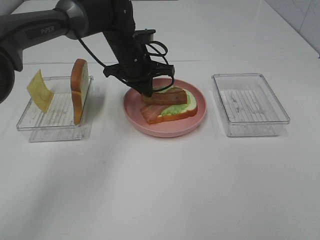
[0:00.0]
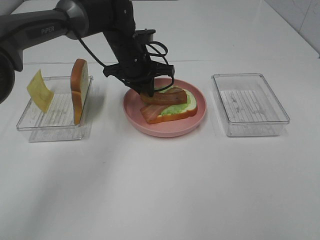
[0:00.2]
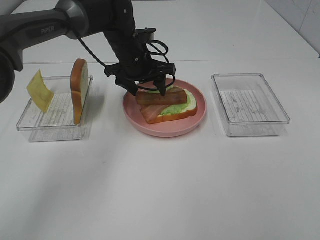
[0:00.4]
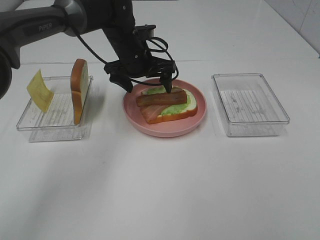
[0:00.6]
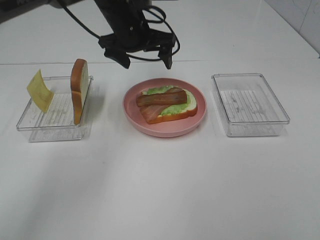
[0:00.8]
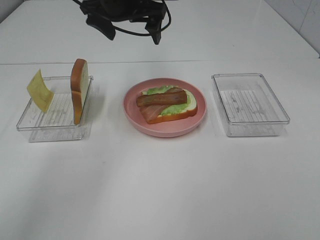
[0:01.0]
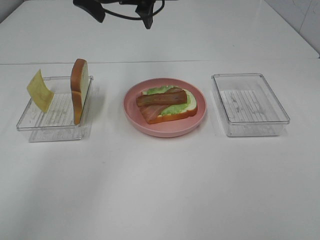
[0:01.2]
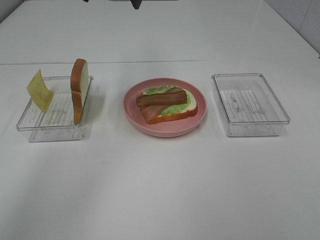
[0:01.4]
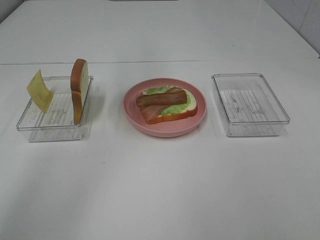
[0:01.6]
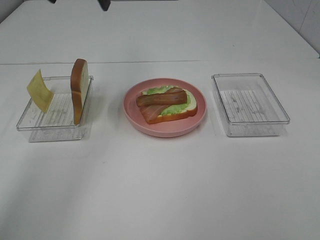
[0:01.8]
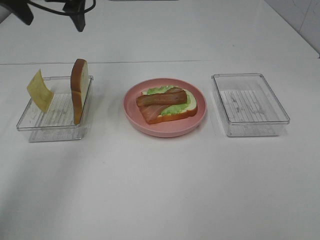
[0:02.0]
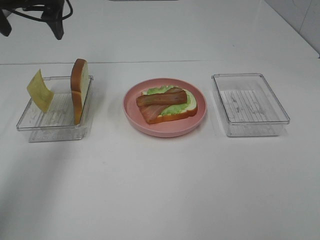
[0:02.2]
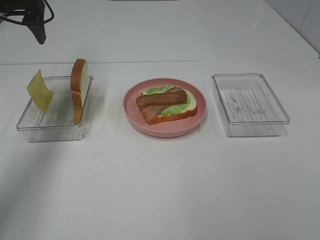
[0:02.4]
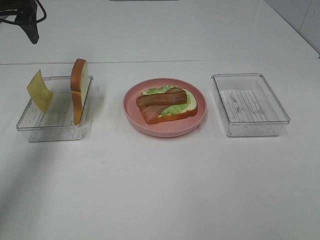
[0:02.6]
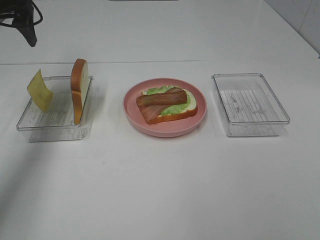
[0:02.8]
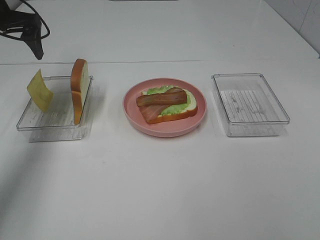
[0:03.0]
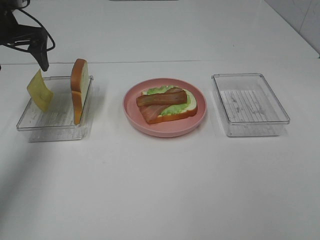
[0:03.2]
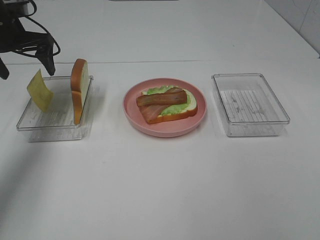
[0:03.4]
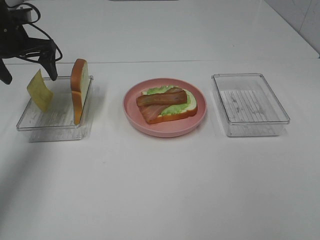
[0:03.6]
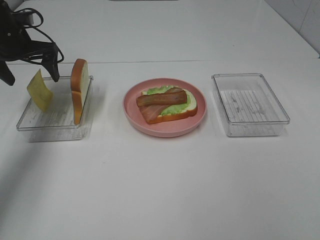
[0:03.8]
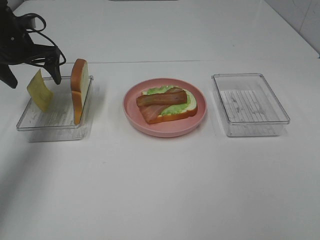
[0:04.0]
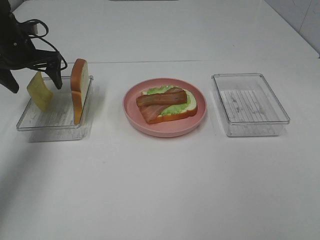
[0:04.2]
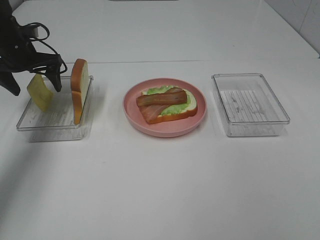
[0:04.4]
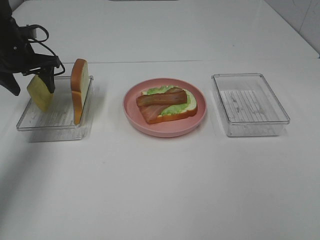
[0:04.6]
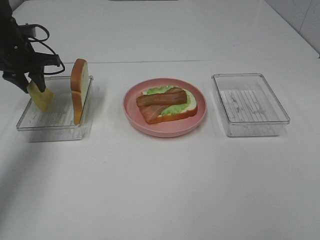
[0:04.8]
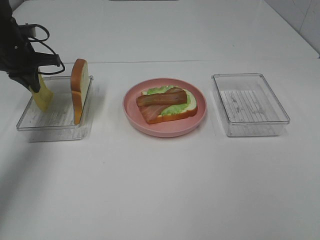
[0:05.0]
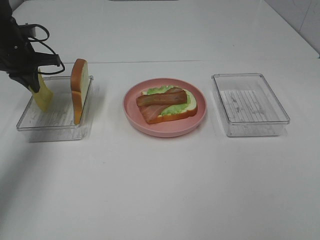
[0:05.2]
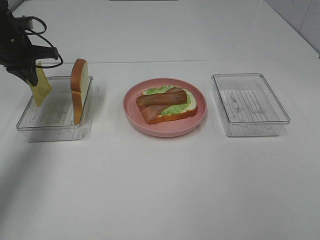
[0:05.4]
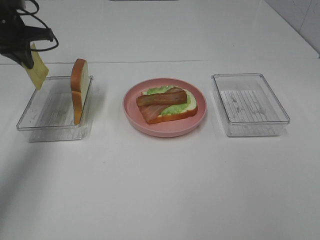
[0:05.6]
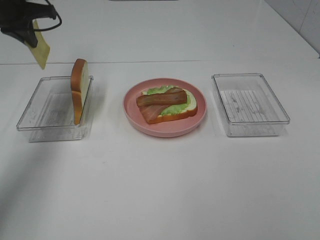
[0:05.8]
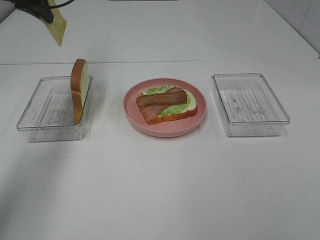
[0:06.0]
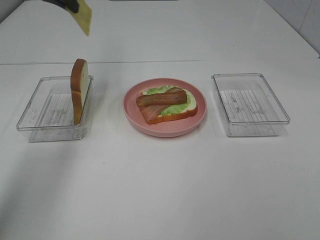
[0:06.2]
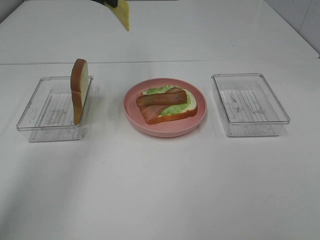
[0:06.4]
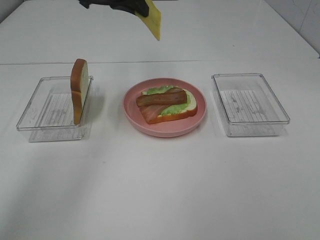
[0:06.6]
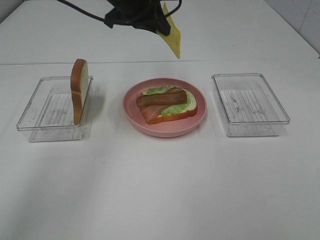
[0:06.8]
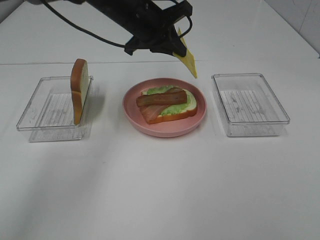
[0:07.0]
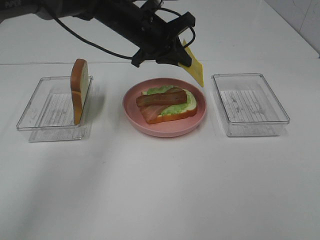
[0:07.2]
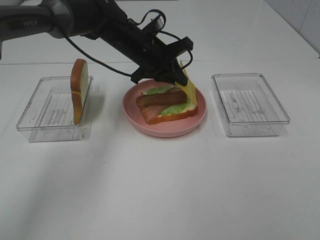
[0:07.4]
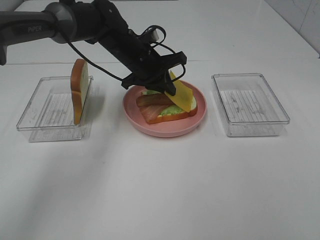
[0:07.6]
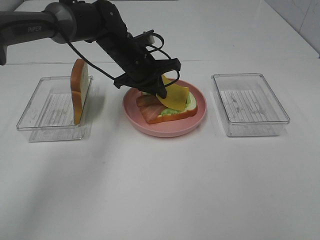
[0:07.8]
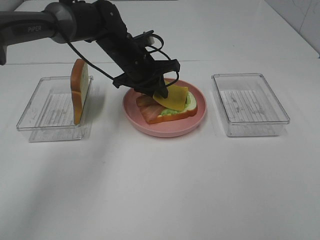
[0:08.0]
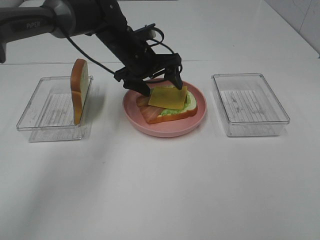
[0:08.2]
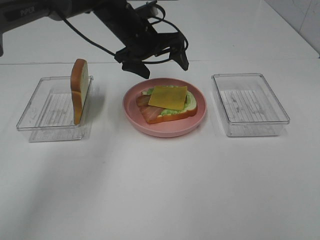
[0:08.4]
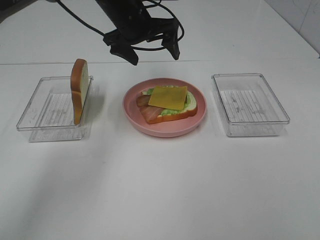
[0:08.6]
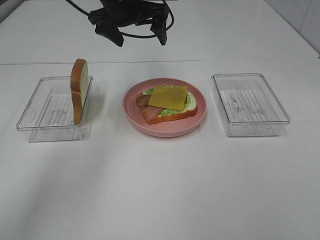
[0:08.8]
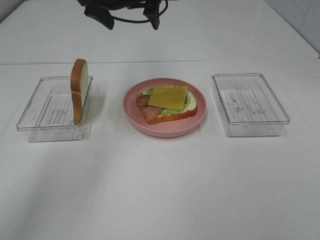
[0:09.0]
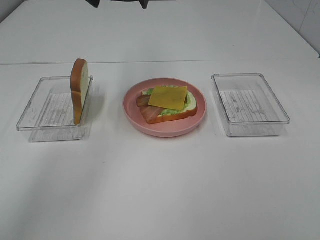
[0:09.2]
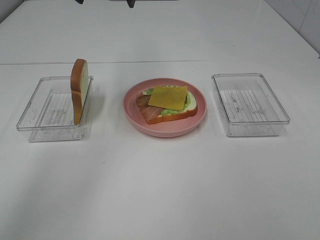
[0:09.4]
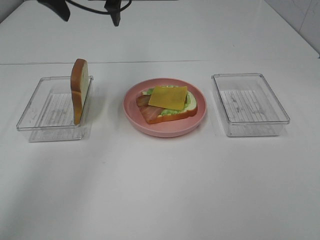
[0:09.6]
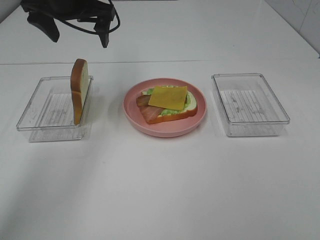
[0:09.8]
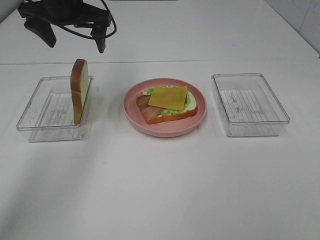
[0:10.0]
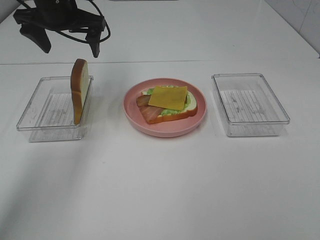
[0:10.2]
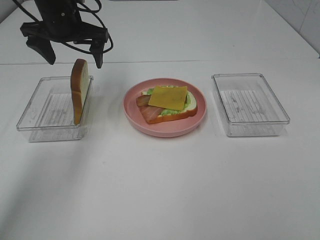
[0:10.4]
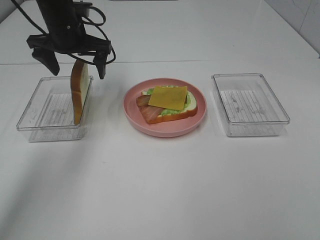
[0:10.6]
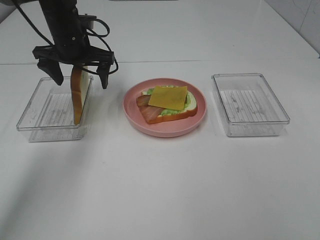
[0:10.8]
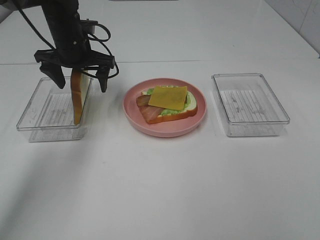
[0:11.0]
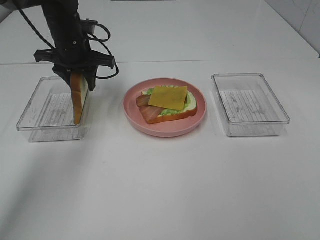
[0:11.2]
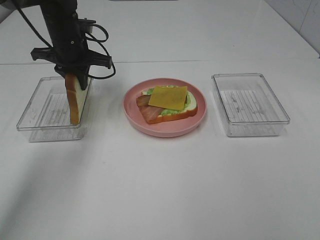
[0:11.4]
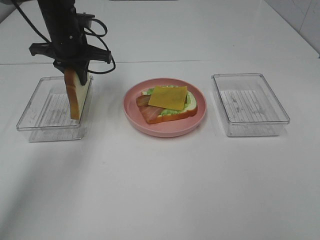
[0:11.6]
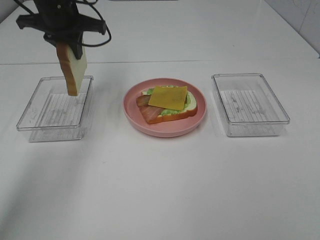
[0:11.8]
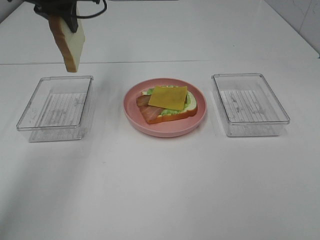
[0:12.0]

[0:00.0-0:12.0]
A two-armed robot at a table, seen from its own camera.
Task of the whole recording: Make sandwiches.
Step, 0:00.8 to 0:05.2: Left hand:grab the lettuce slice.
Step, 0:05.4 to 0:08.4: Left hand:place the cheese slice on top of the bacon.
Step, 0:08.6 to 0:11.6: Left hand:grab the bread slice.
0:00.0 to 0:01.6: The left gripper moves upward, roughly 25 cm, and opens up.
0:01.6 to 0:03.0: The left gripper travels to the left and downward by about 20 cm.
0:03.0 to 0:04.4: The left gripper moves downward, some 10 cm.
0:04.4 to 0:06.0: The left gripper shifts approximately 15 cm upward and to the right, and closes its fingers.
0:06.0 to 0:07.6: The left gripper goes about 25 cm to the right and downward.
0:07.6 to 0:09.0: The left gripper is displaced upward by roughly 15 cm, and opens up.
0:09.0 to 0:10.4: The left gripper goes roughly 10 cm to the left and downward.
0:10.4 to 0:12.0: The left gripper moves upward, about 10 cm, and closes.

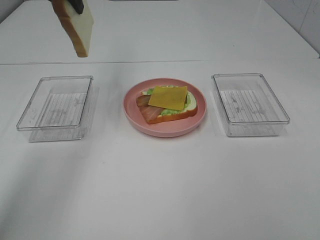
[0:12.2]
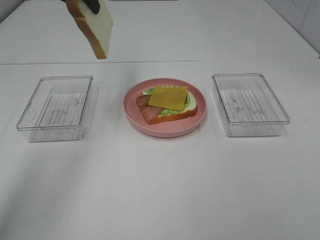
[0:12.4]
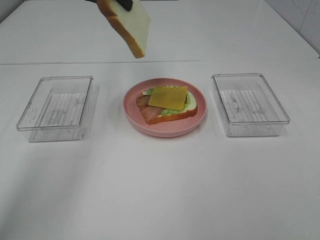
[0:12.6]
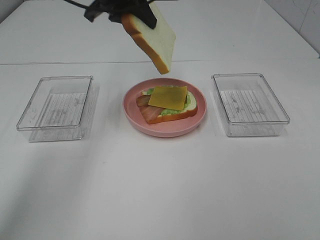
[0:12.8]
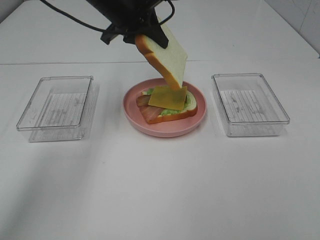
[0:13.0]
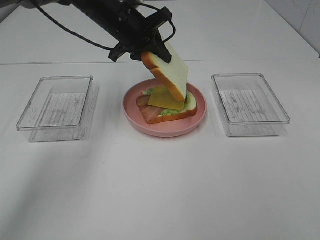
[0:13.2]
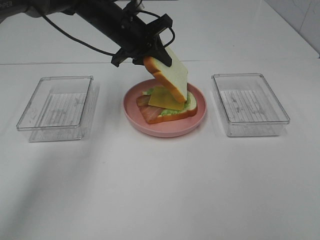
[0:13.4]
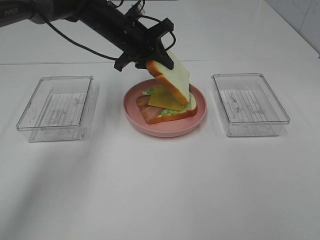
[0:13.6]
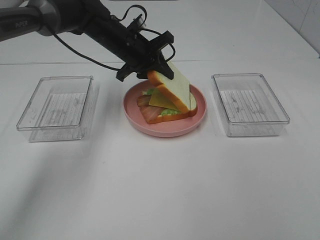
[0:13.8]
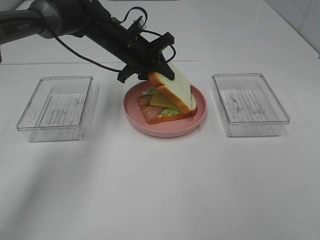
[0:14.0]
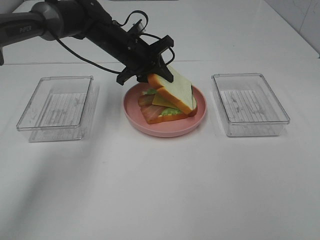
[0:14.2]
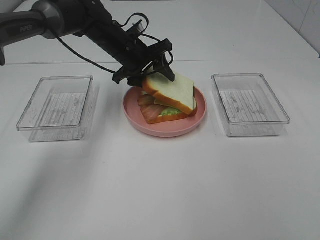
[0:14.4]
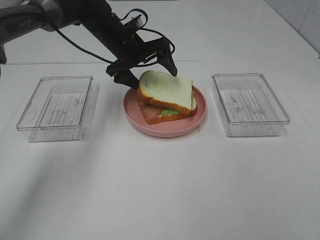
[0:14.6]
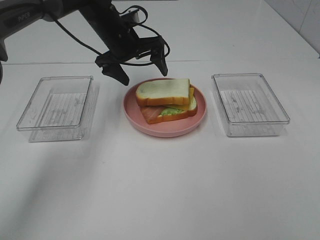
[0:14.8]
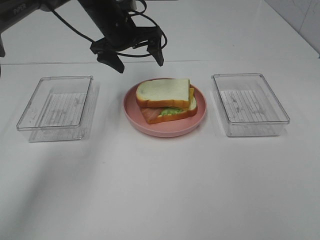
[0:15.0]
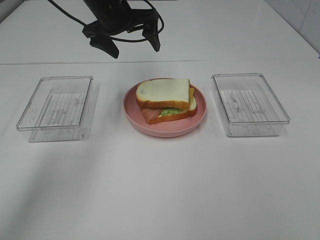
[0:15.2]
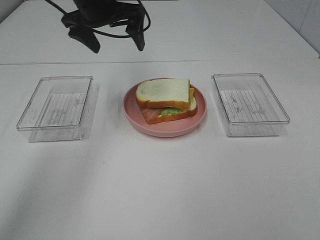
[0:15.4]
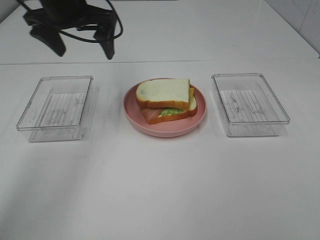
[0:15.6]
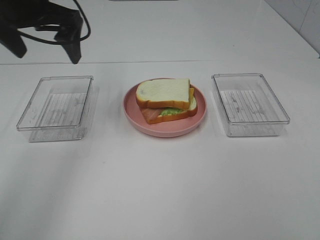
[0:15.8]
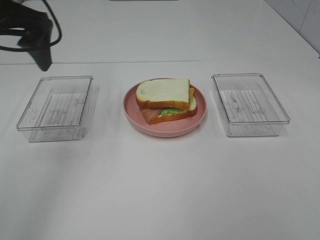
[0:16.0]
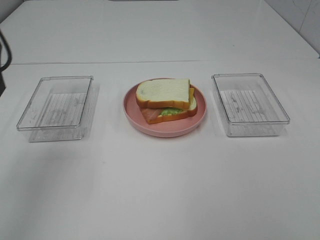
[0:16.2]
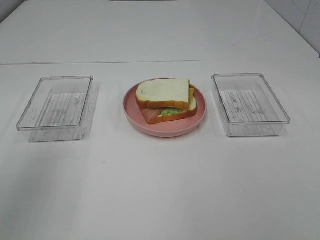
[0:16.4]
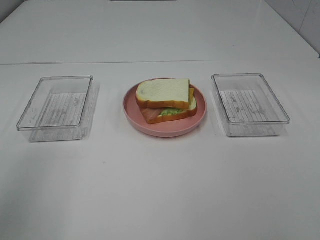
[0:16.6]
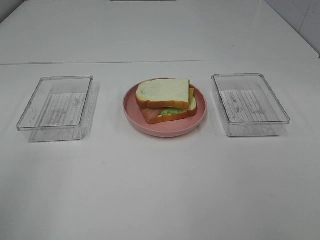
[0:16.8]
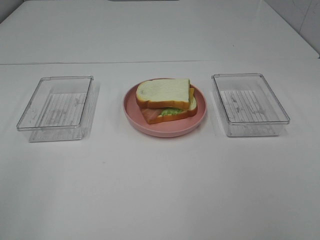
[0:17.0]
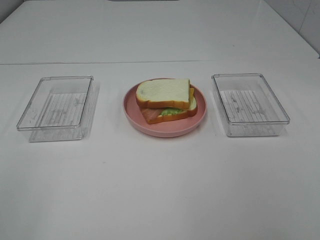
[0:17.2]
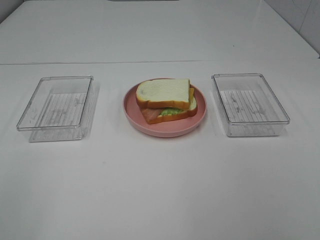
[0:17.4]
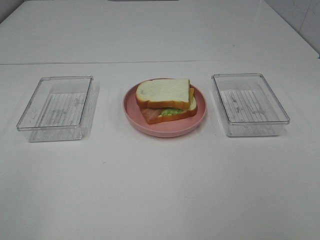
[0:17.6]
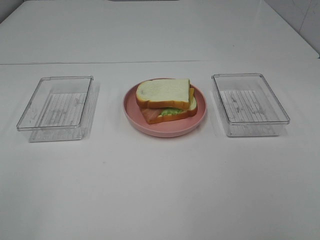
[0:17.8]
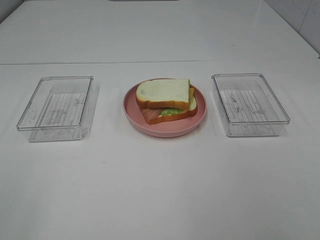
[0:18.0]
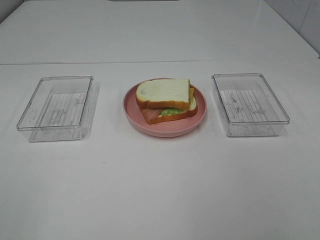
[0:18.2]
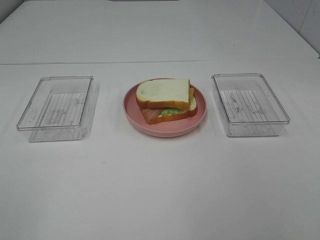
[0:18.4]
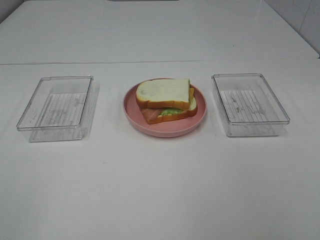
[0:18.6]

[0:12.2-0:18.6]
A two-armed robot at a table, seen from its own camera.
Task of the whole recording: Make sandwiches.
Step, 0:12.2 to 0:14.8: Left hand:place the bread slice on the cheese slice.
0:12.2 to 0:13.8: The left gripper moves downward and to the right, approximately 20 cm.
0:13.8 to 0:15.4: The left gripper shifts about 10 cm upward, and opens up.
0:15.4 to 0:17.0: The left gripper shifts about 50 cm backward and to the left.

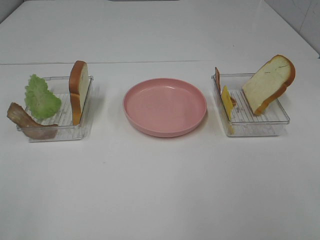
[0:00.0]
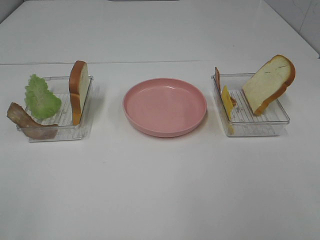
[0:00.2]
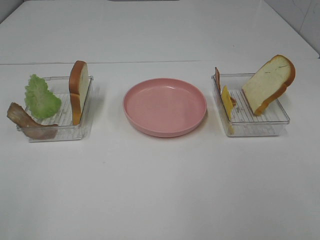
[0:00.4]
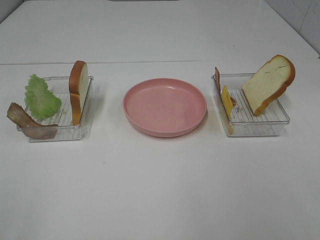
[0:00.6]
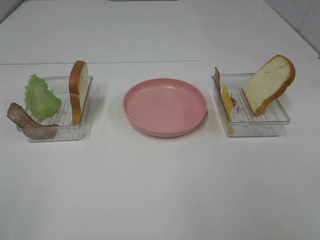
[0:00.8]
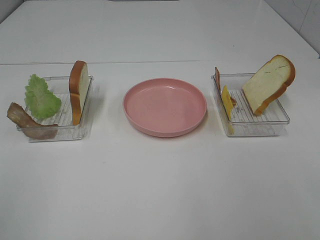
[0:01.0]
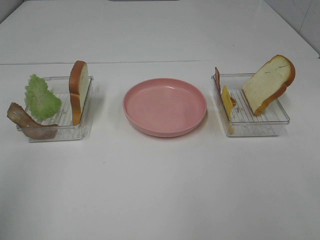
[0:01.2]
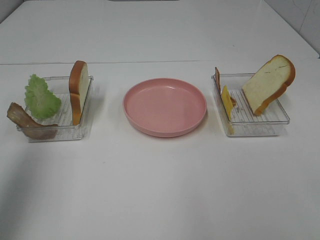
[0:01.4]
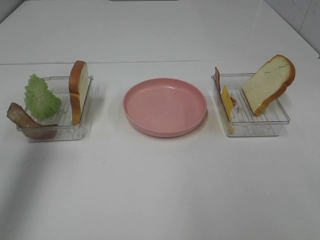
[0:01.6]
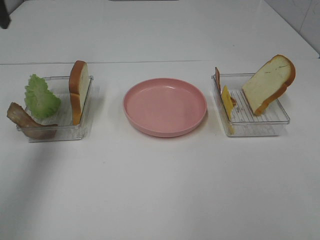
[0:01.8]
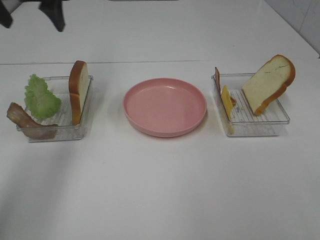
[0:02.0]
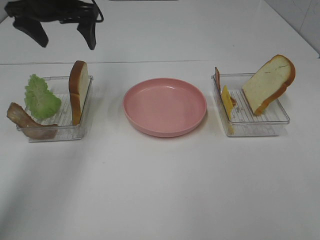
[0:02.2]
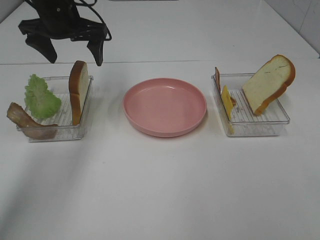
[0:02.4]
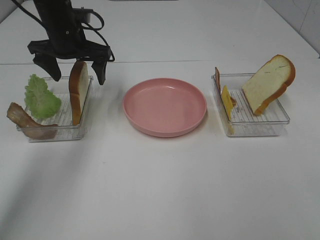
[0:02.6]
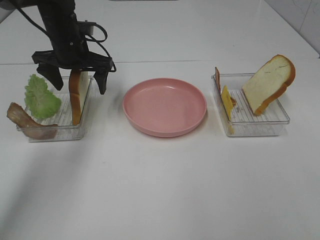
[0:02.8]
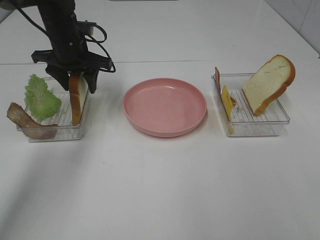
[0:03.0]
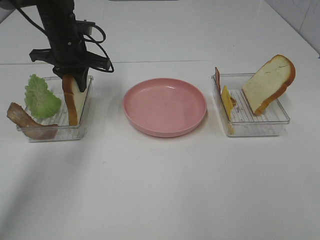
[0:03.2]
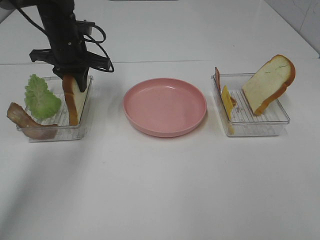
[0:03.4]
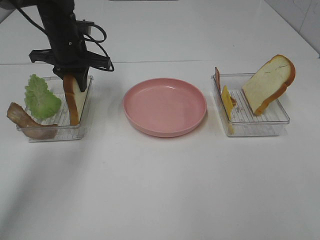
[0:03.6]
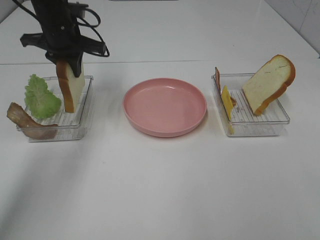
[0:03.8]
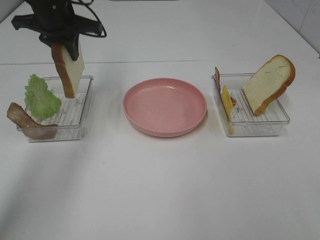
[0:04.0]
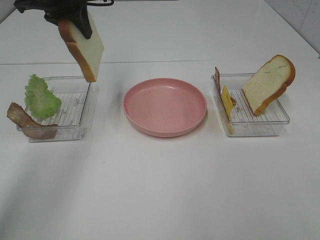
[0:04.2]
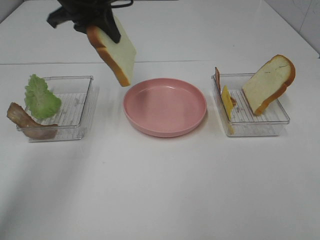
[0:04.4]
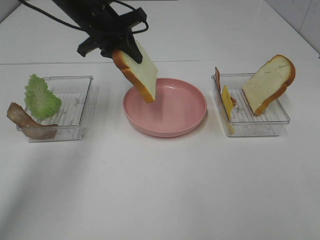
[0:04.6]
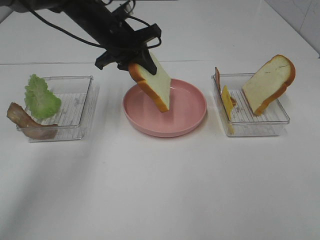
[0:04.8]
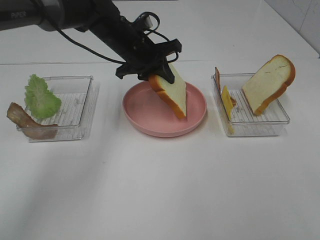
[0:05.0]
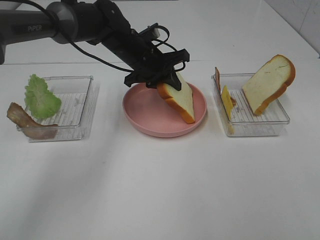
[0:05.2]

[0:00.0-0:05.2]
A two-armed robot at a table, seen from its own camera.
Task of the whole recording: Make sandwiches.
Step, 0:00.0 to 0:03.6: Left hand:grab the bread slice.
0:00.0 to 0:01.8: The left gripper is displaced forward by roughly 40 cm.
0:01.8 to 0:03.4: The left gripper is displaced downward, to the right and forward by some 20 cm, and closes its fingers.
0:03.4 to 0:05.2: The left gripper shifts approximately 15 cm to the right, and moves approximately 10 cm upward and comes back.
